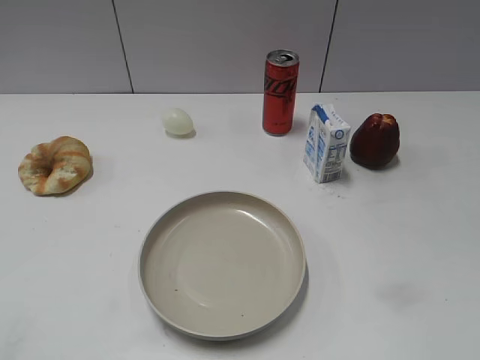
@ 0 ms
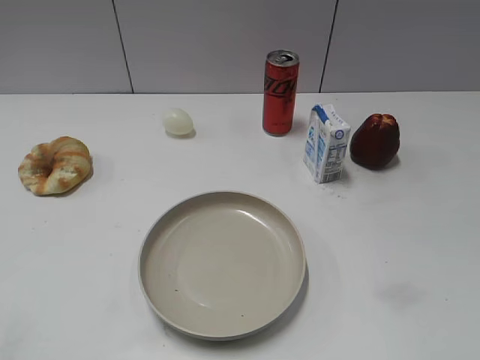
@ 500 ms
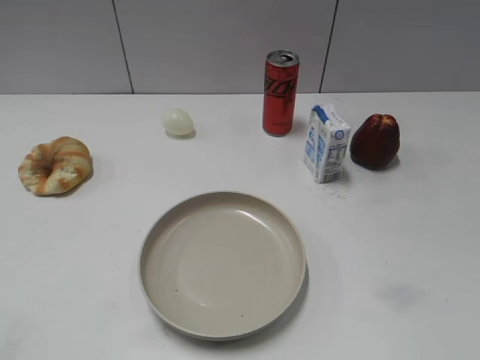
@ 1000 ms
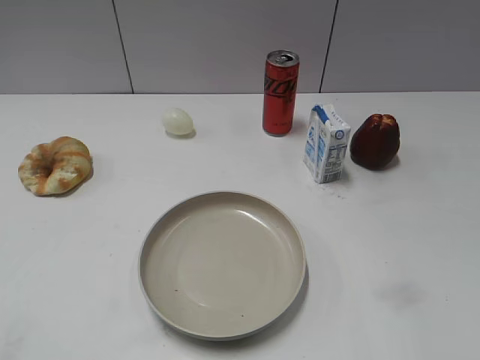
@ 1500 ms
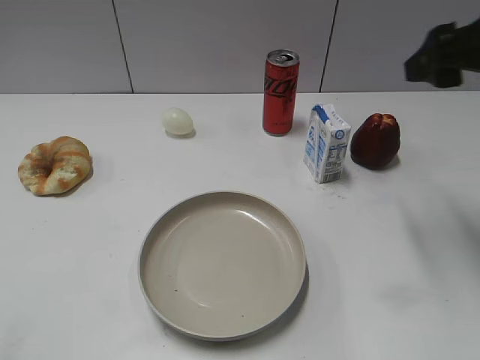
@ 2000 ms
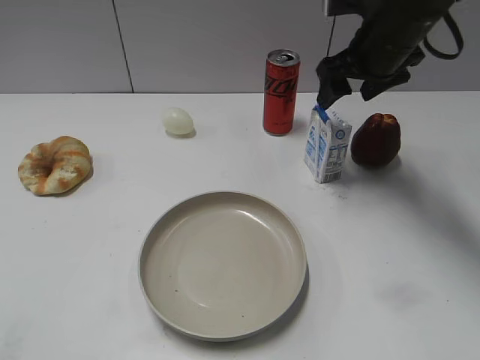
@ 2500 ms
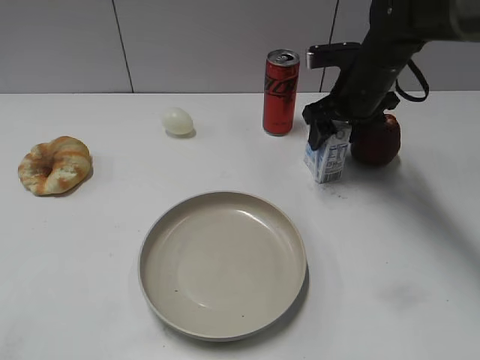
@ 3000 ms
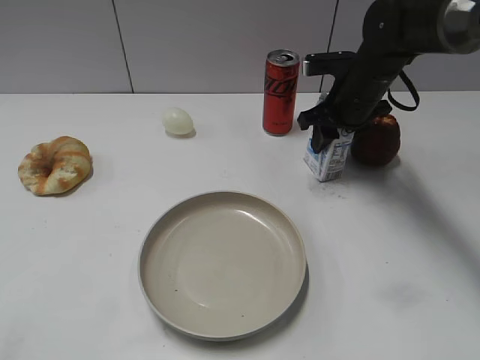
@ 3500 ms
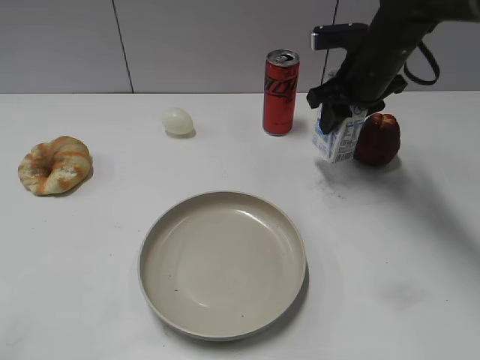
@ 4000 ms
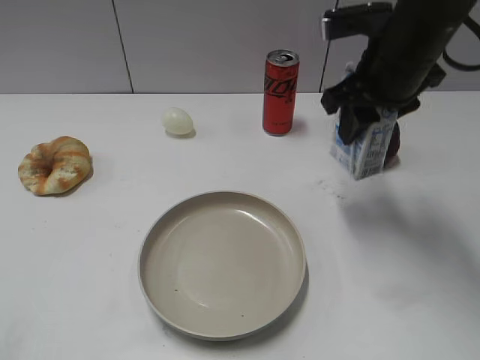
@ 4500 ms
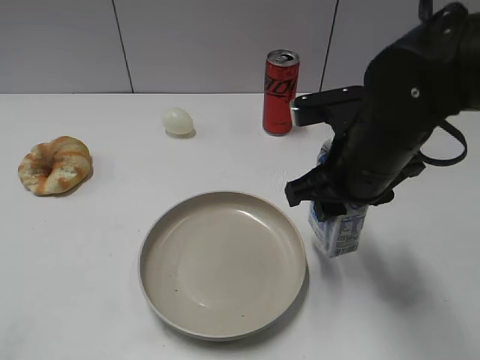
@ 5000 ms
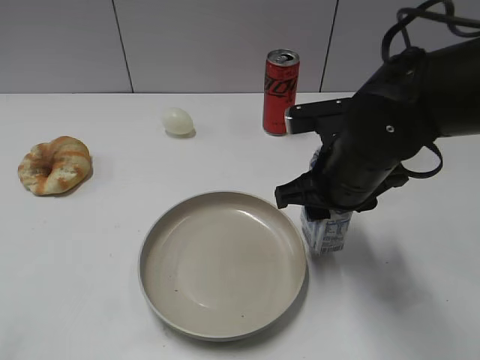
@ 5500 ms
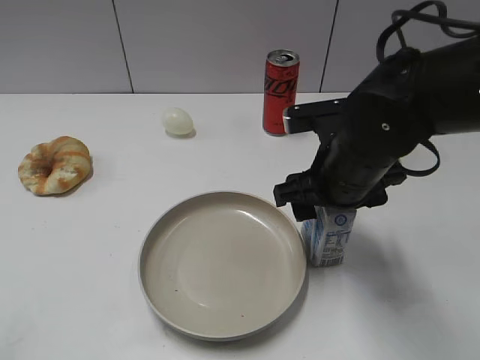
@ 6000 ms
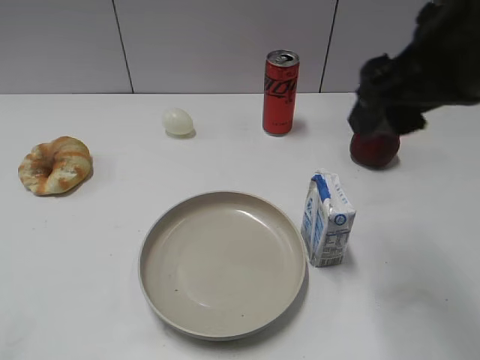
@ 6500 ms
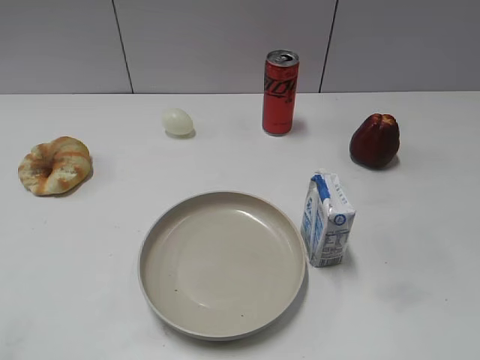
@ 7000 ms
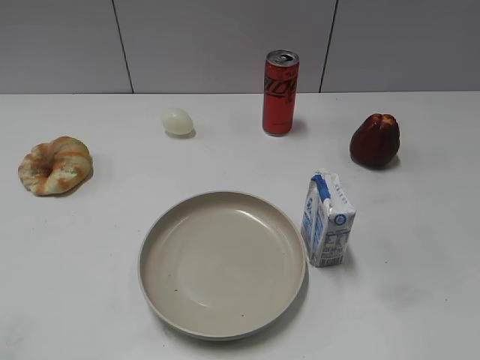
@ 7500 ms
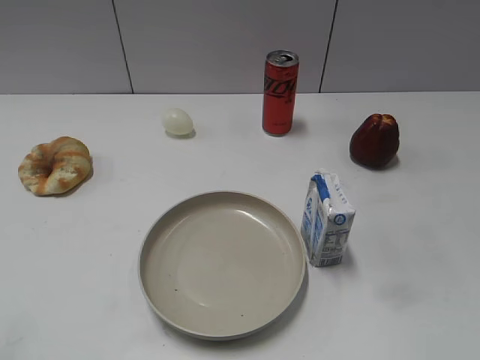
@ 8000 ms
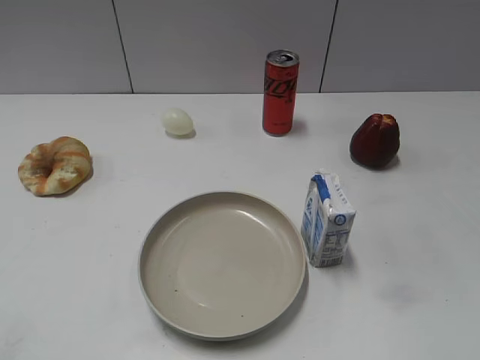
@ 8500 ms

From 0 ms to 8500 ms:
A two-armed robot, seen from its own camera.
Step, from 1000 ms to 3500 ms: Grasp the milk with right gripper.
Step, from 4000 ms to 6000 ms: Place the milk on the table with right gripper.
From 2000 ms to 4000 ms: The right gripper moves forward, downward and to the left, roughly 20 cm, and closes up.
From 4000 ms to 6500 ms: The right gripper travels backward and upward by about 25 cm, and opens.
From 6500 ms to 8500 ms: The right gripper heads backward and to the right, covering some 25 cm.

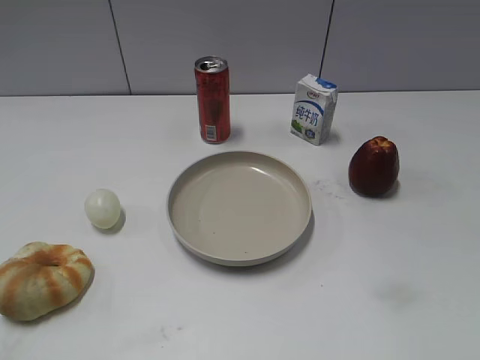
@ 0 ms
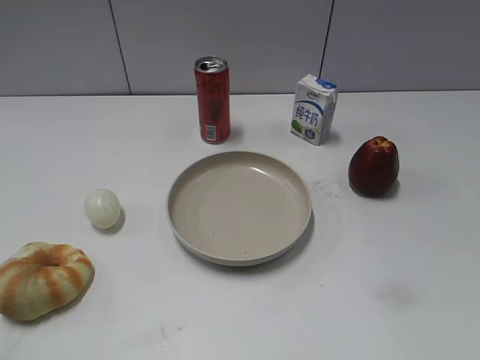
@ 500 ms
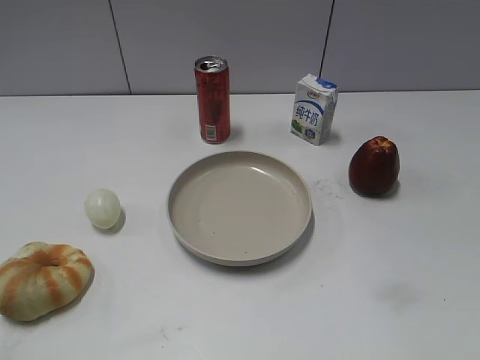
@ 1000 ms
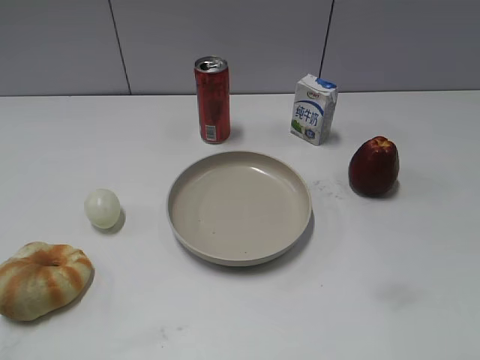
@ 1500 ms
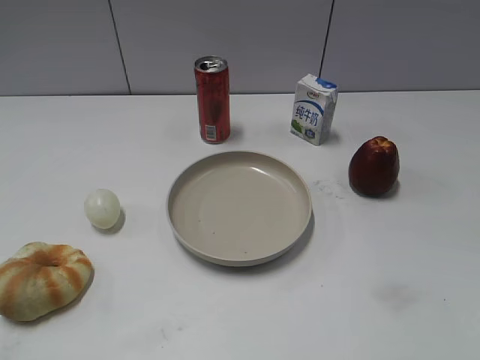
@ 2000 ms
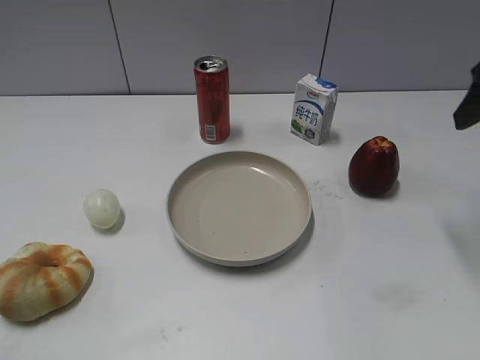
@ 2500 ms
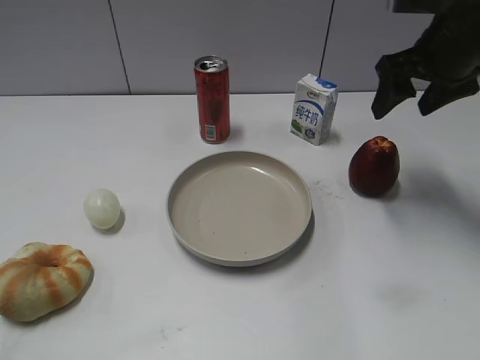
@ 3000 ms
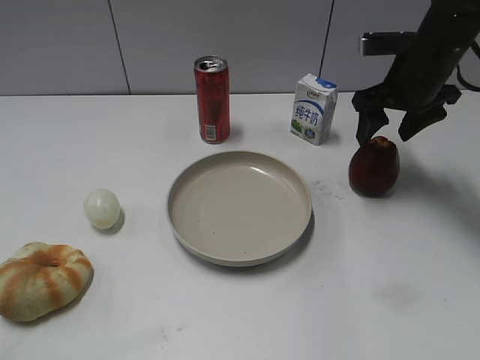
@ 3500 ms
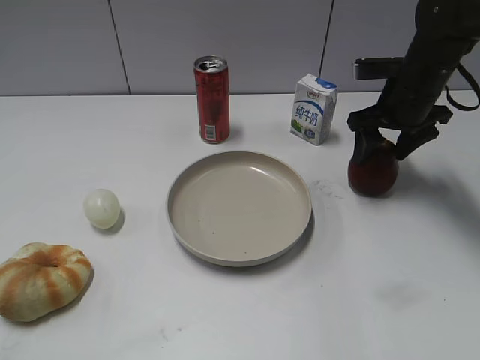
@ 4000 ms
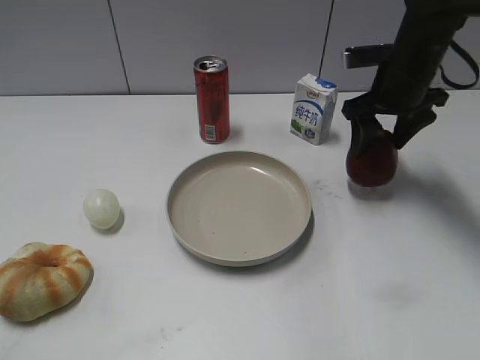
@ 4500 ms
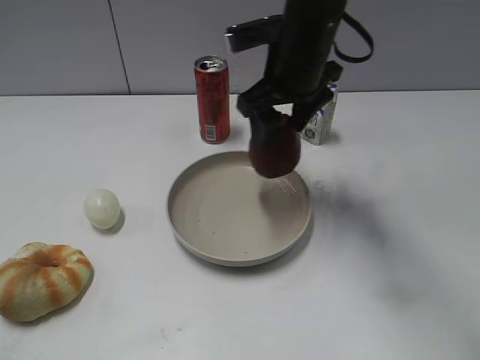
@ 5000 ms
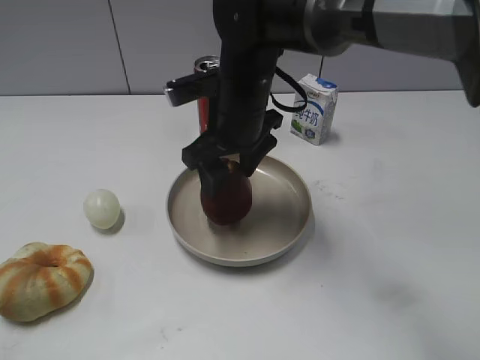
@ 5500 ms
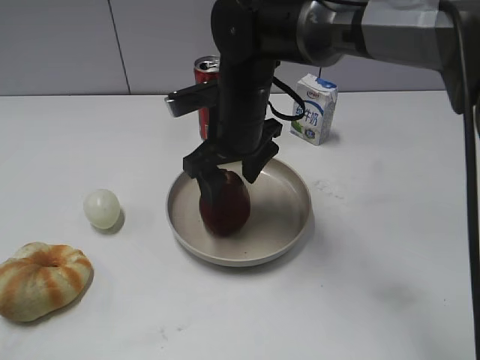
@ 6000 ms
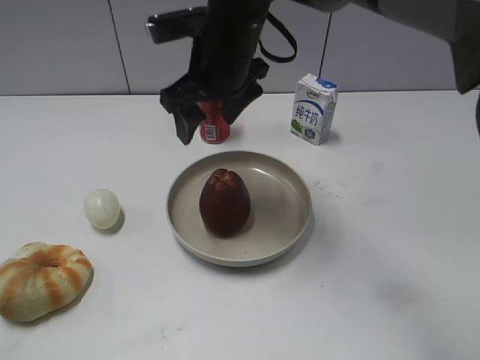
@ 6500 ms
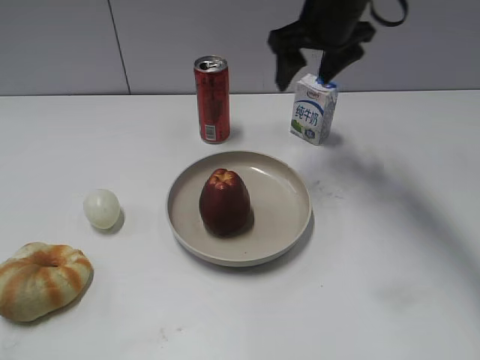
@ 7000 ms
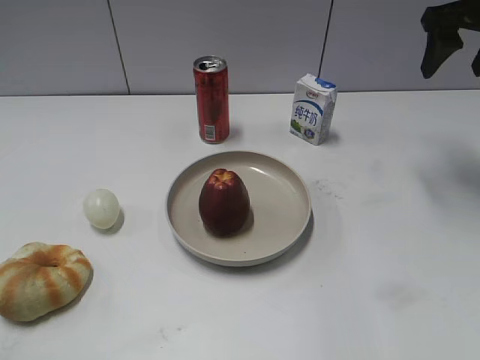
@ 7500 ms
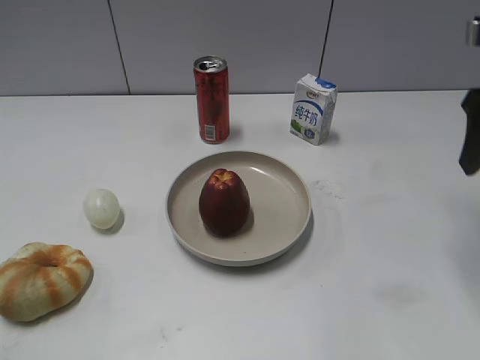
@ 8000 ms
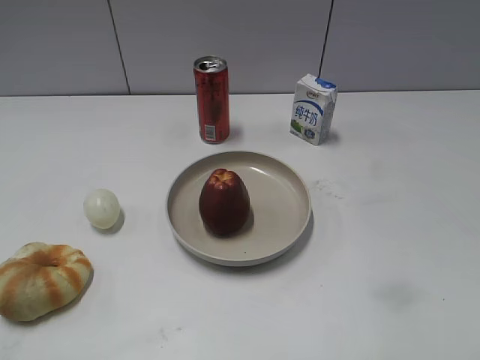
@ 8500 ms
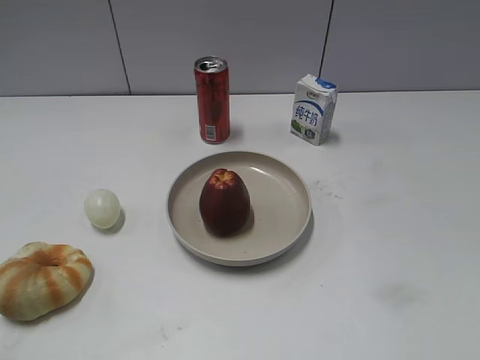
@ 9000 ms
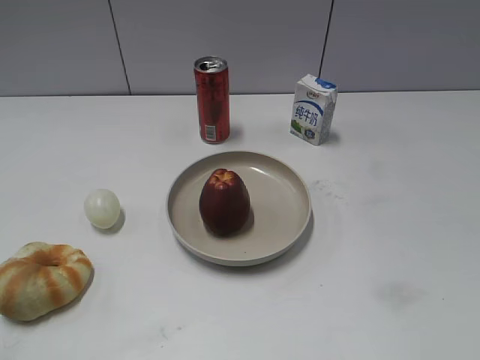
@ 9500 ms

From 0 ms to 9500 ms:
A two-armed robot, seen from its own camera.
Step, from 2500 ms to 4000 ms: Grasp the apple with right gripper.
Step, from 4500 ms to 6000 ms: Place the apple on the plate with right gripper.
From 2000 ms to 4000 ms: The right gripper moves forward and downward, some 30 cm.
From 4000 ms to 5500 ms: The right gripper moves to the left, approximately 20 cm.
From 5500 ms to 7500 ms: The right gripper travels to the right and upward by approximately 30 cm.
From 7500 ms to 9500 ms: The right gripper travels backward by some 40 cm.
